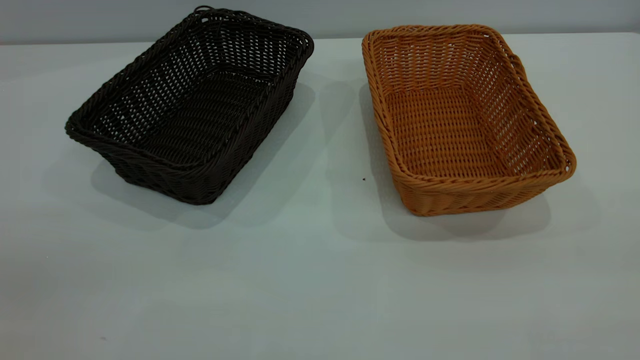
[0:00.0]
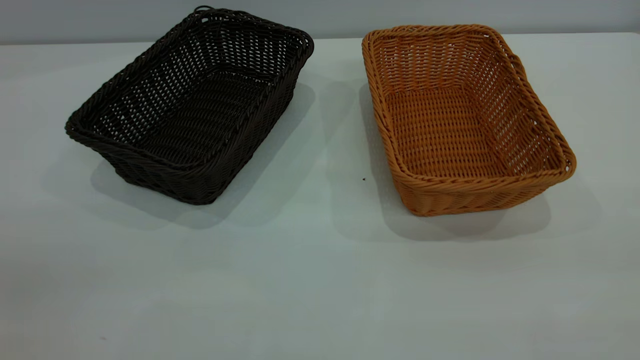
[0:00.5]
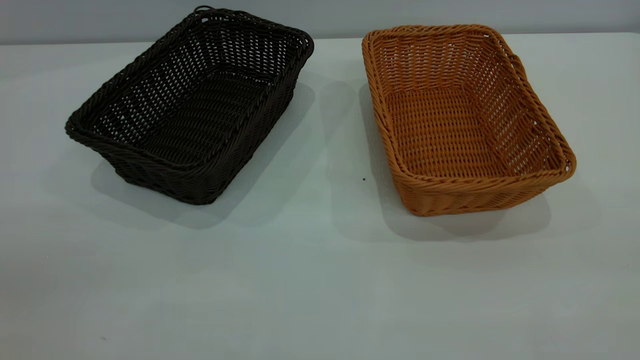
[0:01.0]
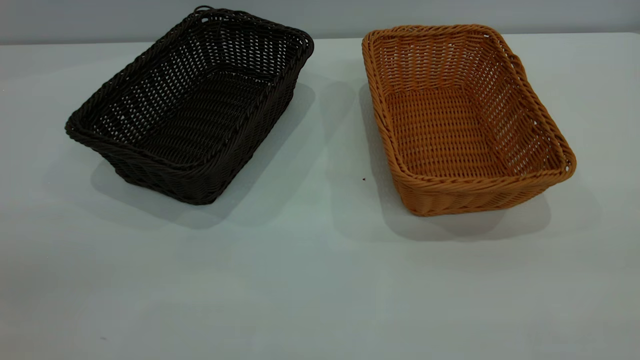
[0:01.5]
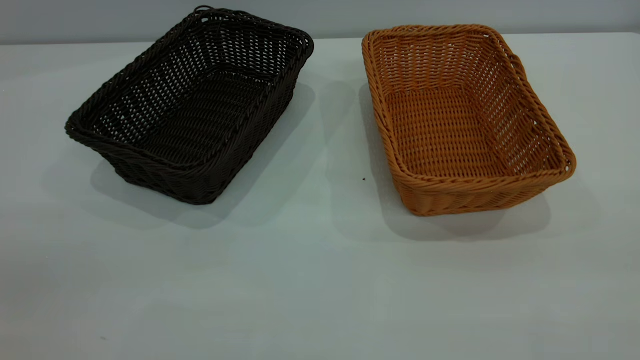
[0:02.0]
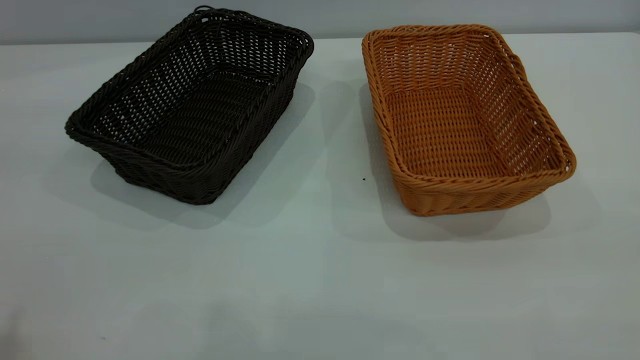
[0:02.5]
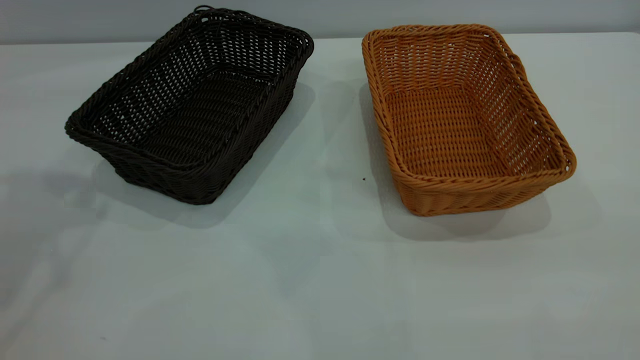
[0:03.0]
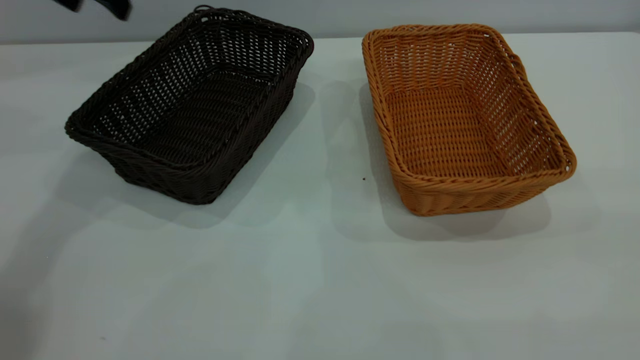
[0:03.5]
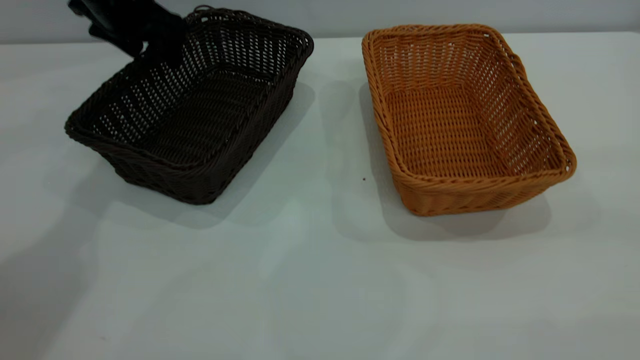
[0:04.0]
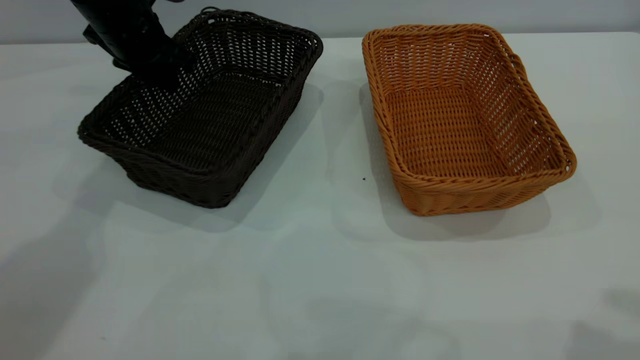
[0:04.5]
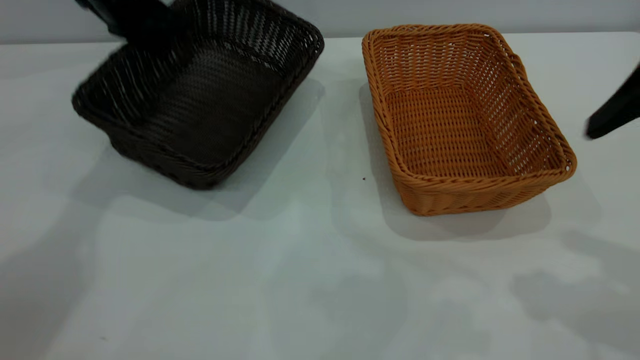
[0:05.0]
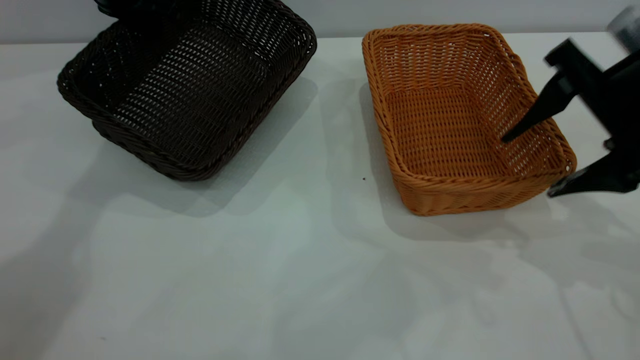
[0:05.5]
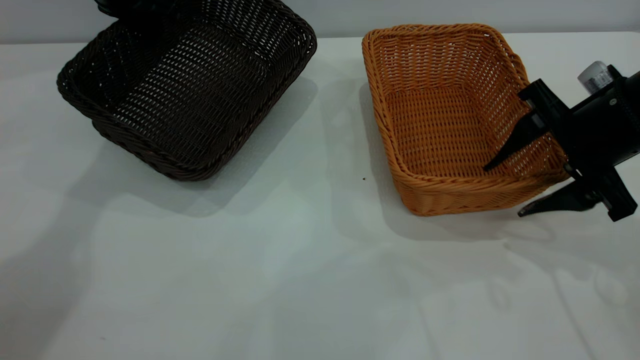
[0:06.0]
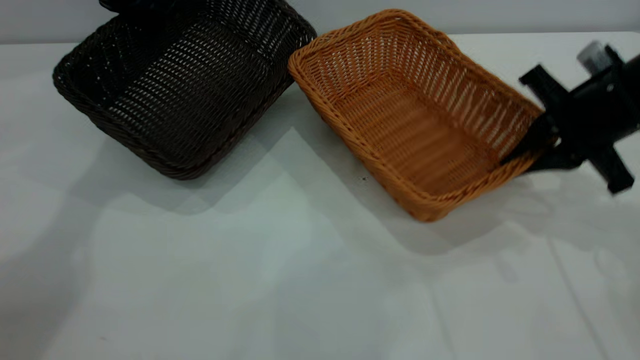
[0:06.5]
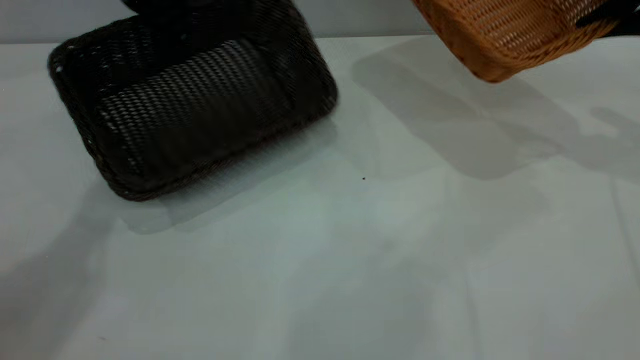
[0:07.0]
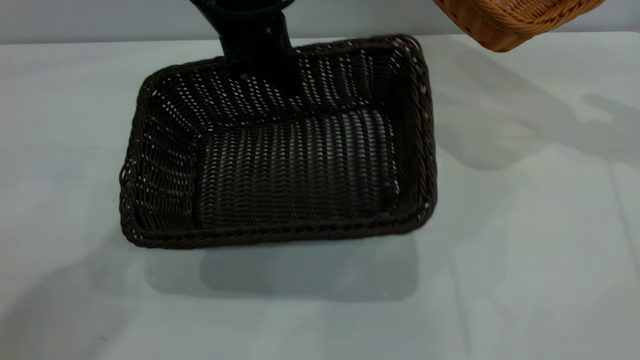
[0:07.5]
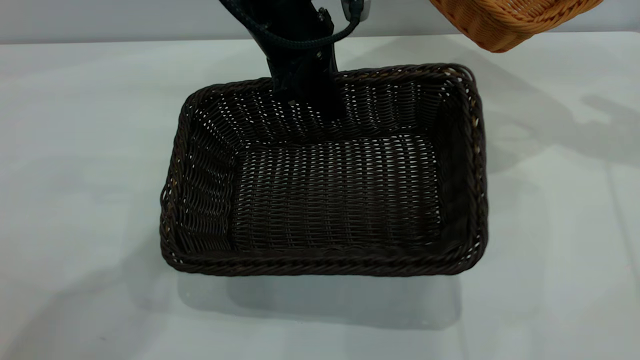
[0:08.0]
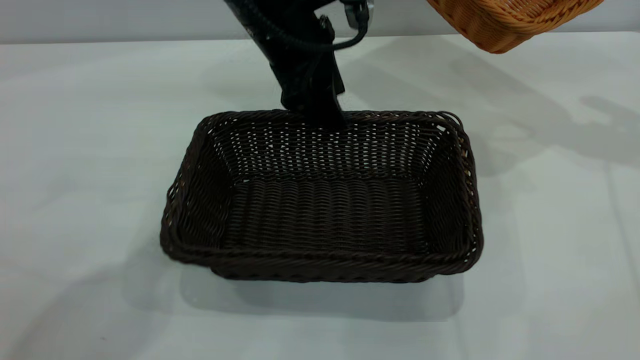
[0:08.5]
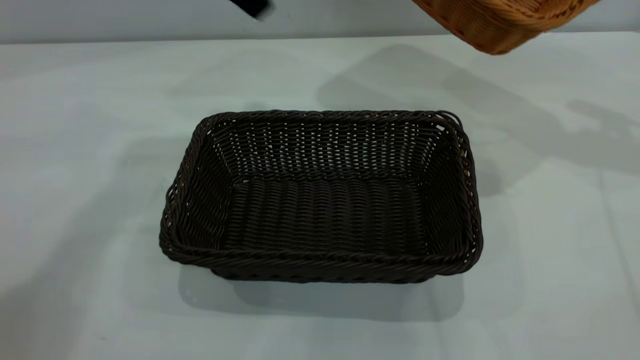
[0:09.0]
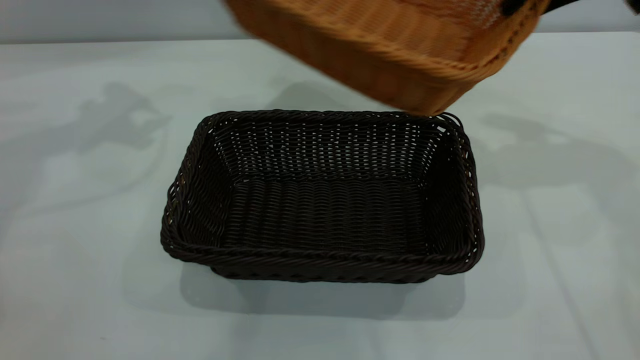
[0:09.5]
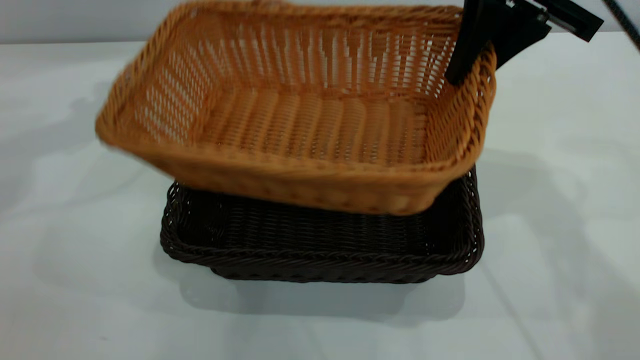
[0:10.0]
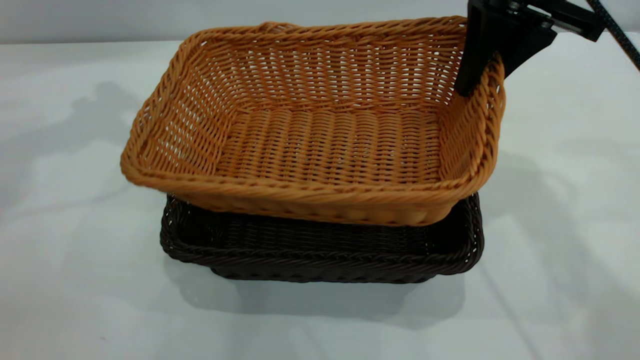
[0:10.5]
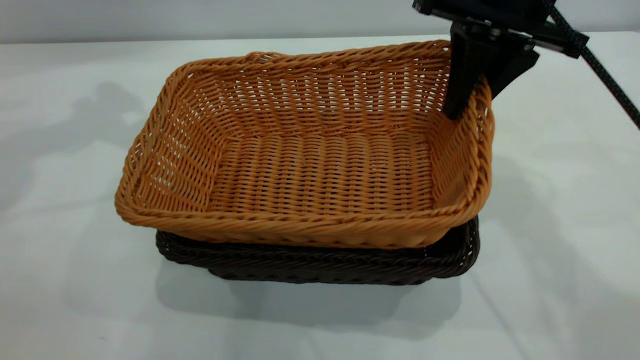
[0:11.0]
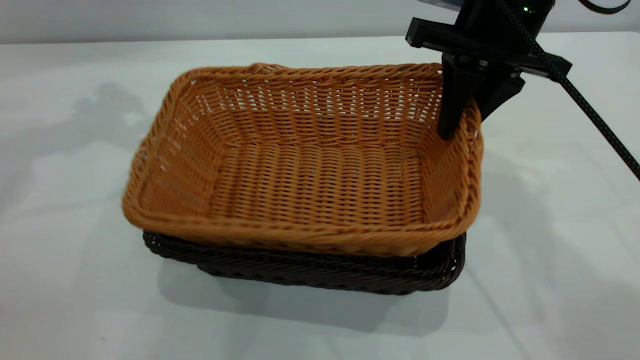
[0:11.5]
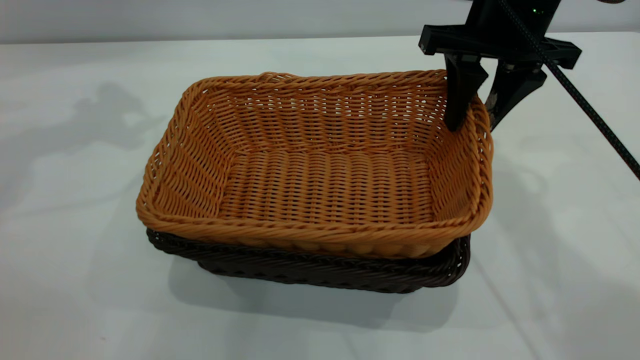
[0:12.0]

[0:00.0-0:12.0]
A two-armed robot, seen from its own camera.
Task of the whole recording: the left gripper grasp the black basket and place it in the center of the table, the right gripper grasp the brown basket and place it inside the black one.
Step, 0:00.0 to 0:06.5: Pick up the light basket with the right gripper.
Step, 0:07.0 to 0:08.5: Move the dark basket to the center of view.
0:00.0 to 0:02.0: Both grippers stay about where they are.
0:02.0 to 0:04.0: The left gripper goes approximately 50 cm forward.
0:04.0 to 0:06.0: The right gripper travels forward and downward by some 35 cm. Meanwhile the left gripper closes up.
0:06.0 to 0:08.0: The left gripper shifts some 20 cm to the right and backward; the right gripper travels upward, forward and to the right by approximately 20 cm, and closes its fingers.
0:08.0 to 0:10.0: Both grippers move to the left, approximately 25 cm. The left gripper opens.
0:10.0 to 0:12.0: The right gripper moves downward, about 5 cm, and opens up.

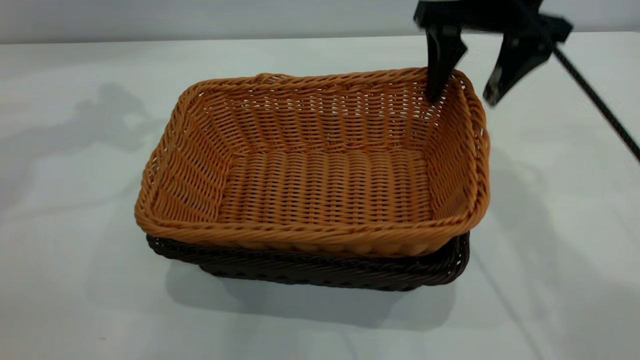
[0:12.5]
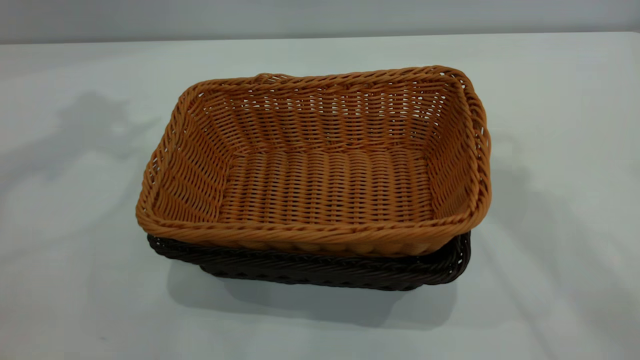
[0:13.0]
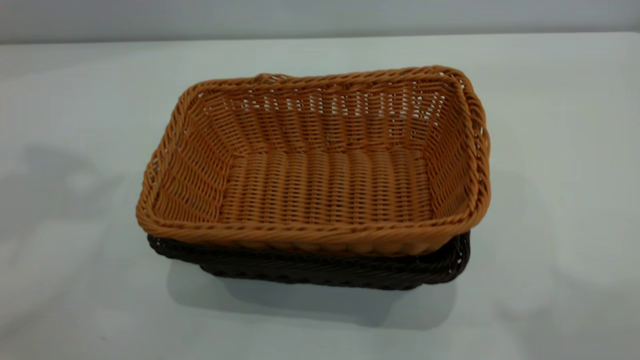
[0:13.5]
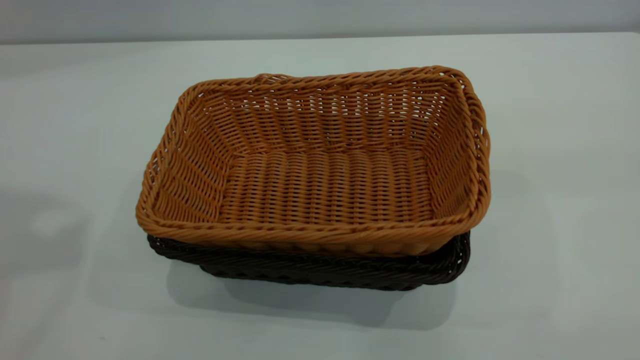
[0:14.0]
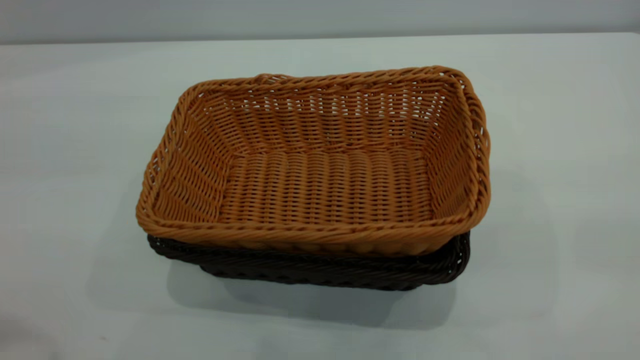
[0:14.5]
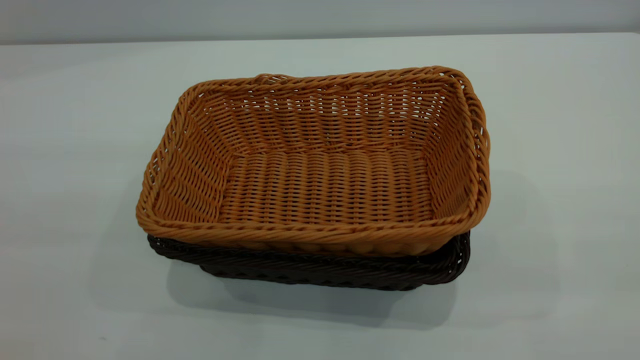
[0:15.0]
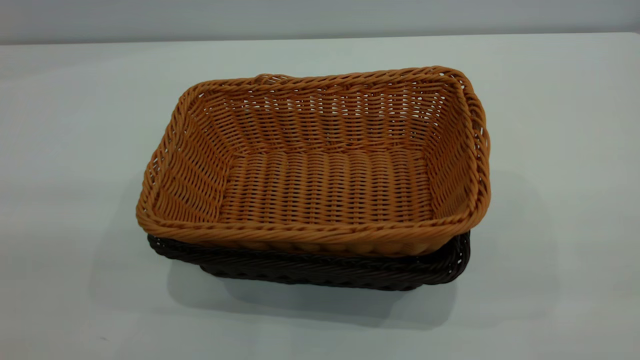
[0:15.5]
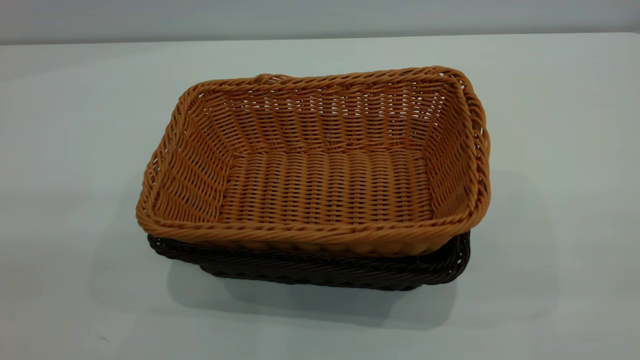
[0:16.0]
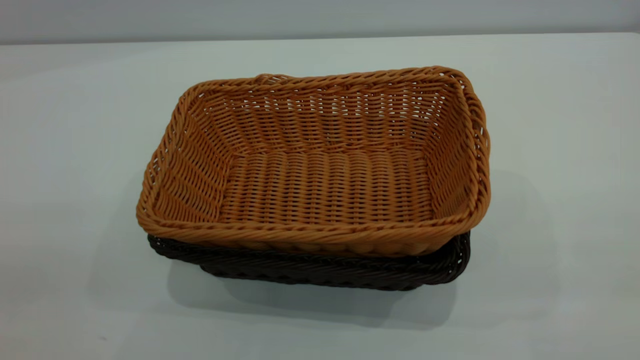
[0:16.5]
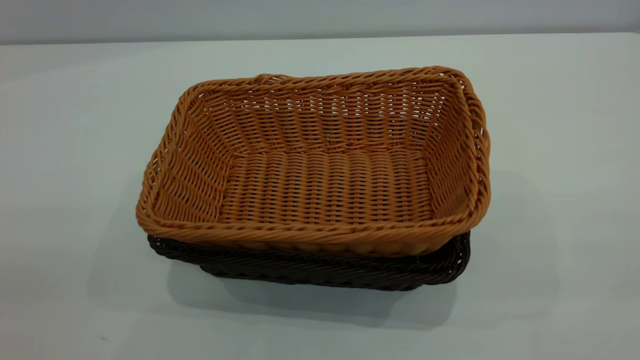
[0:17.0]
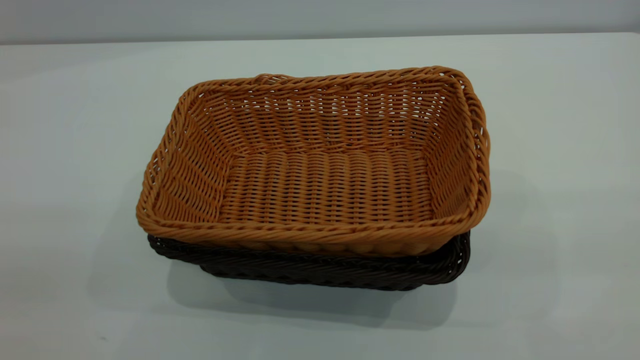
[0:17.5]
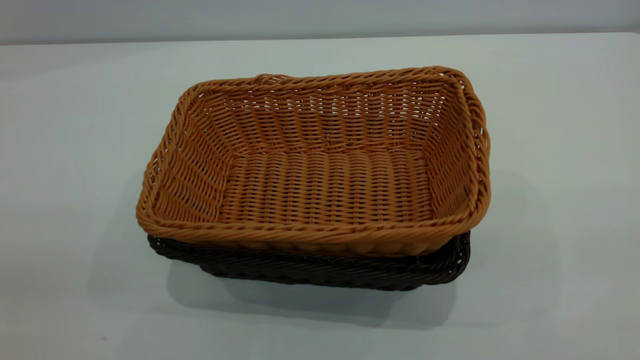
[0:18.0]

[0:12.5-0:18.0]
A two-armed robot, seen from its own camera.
Task of the whole recording: the left gripper grasp the black basket and place it in the center of the table, the right gripper grasp the brown basket and place it inside the black one.
0:12.5 to 0:14.5: Both grippers travel together backward, roughly 35 cm.
